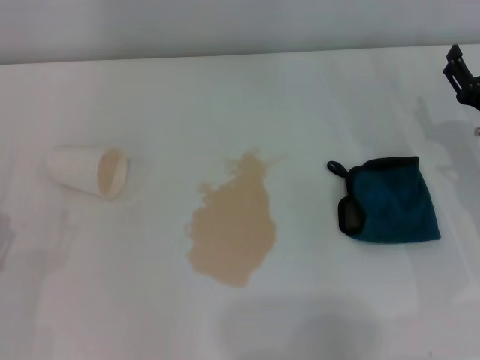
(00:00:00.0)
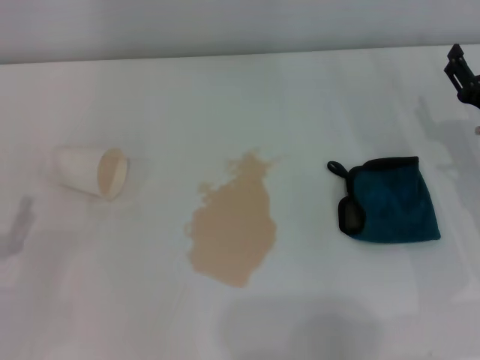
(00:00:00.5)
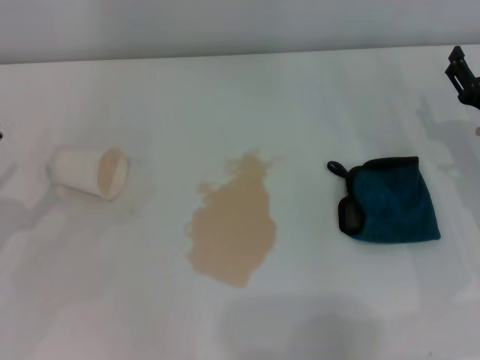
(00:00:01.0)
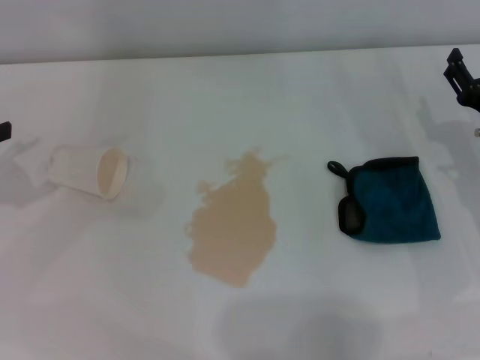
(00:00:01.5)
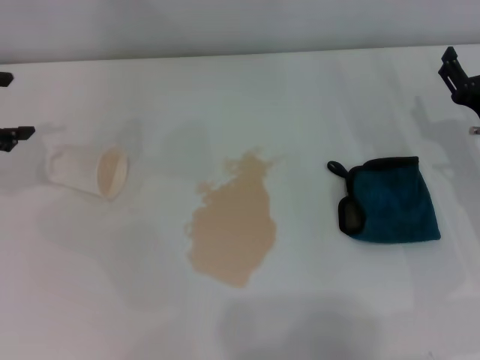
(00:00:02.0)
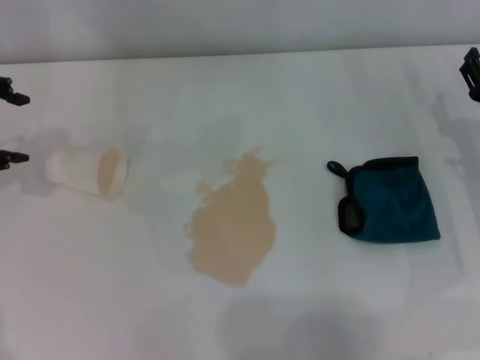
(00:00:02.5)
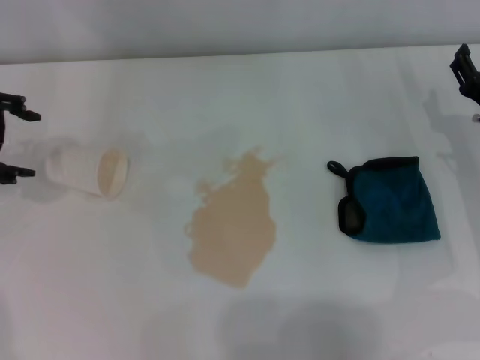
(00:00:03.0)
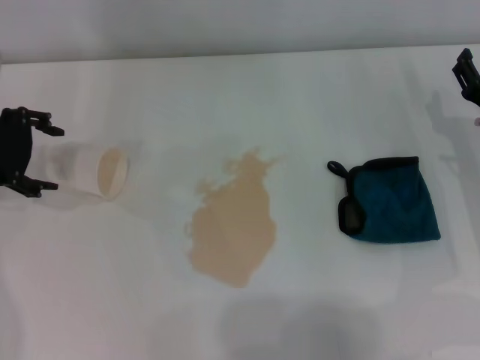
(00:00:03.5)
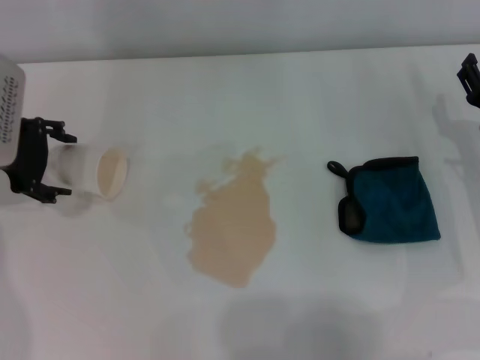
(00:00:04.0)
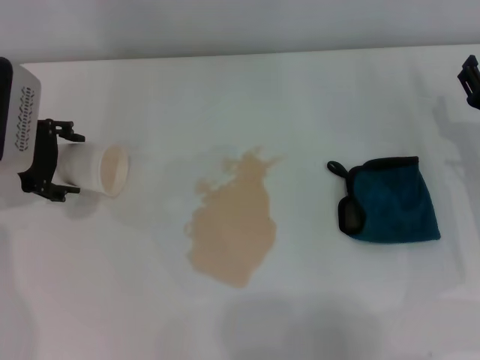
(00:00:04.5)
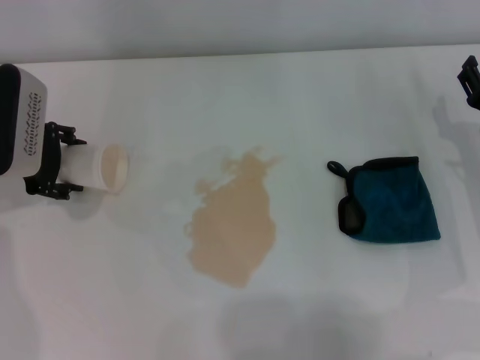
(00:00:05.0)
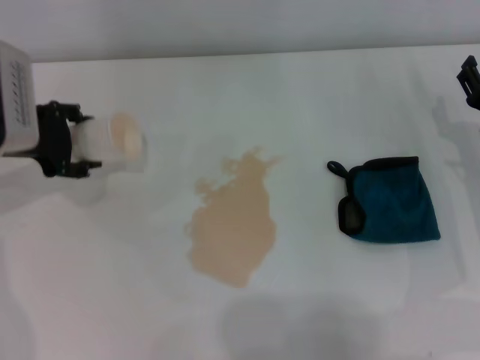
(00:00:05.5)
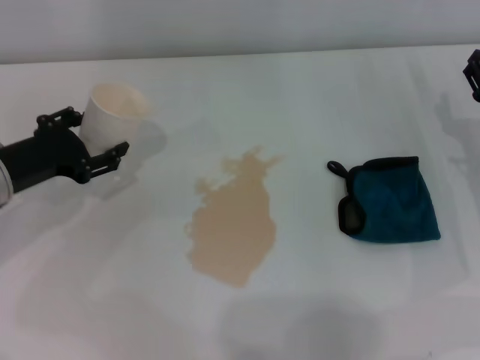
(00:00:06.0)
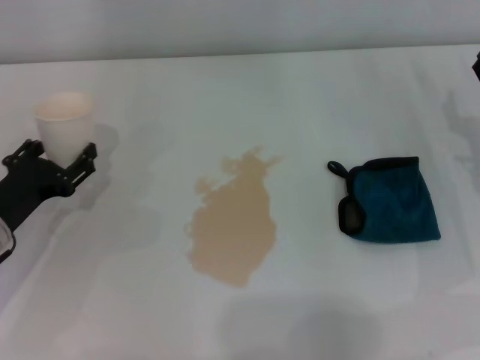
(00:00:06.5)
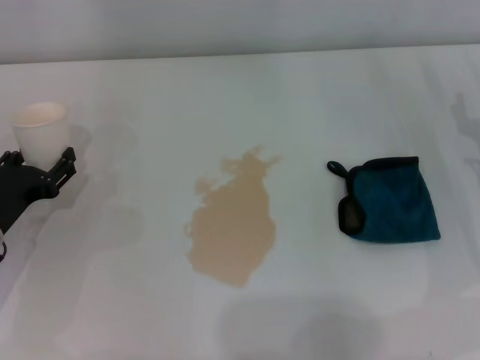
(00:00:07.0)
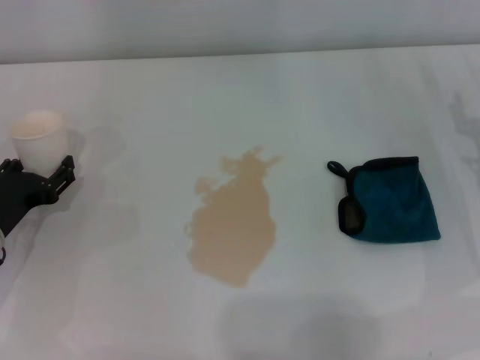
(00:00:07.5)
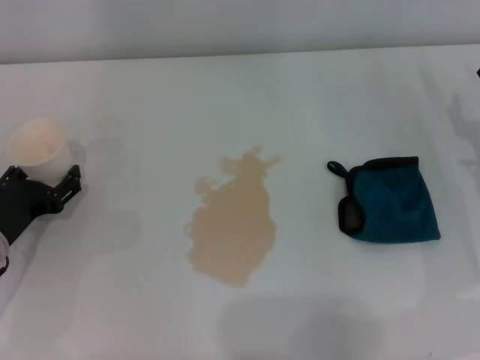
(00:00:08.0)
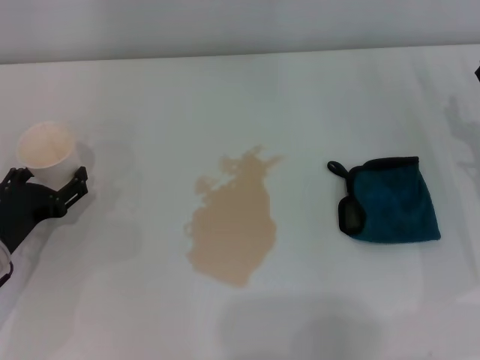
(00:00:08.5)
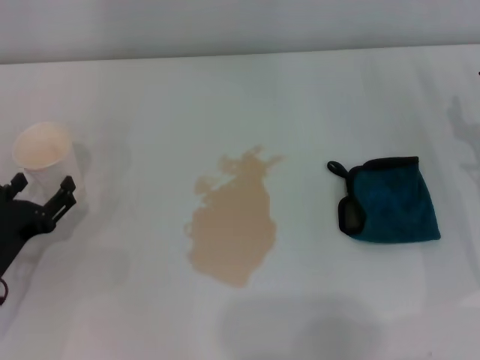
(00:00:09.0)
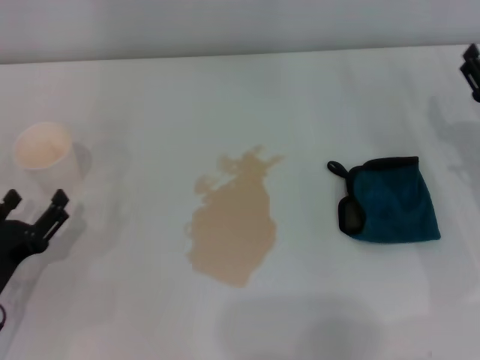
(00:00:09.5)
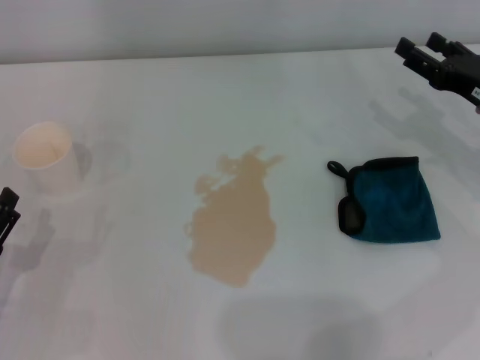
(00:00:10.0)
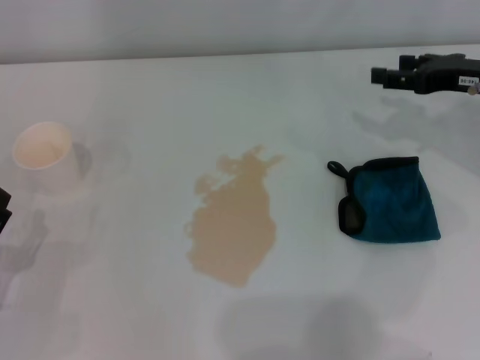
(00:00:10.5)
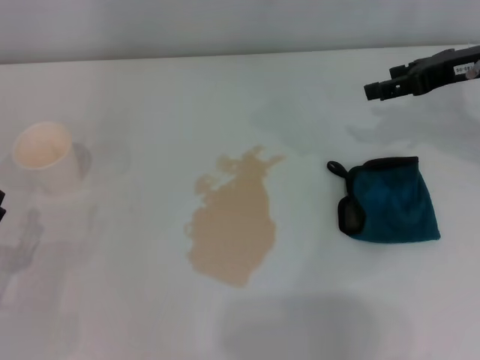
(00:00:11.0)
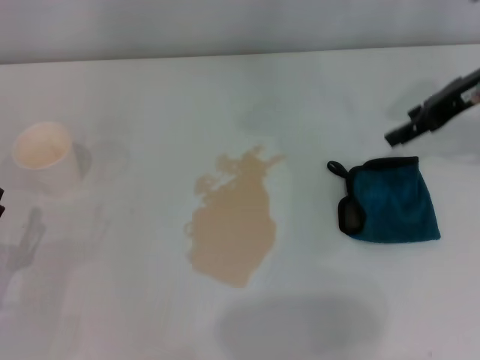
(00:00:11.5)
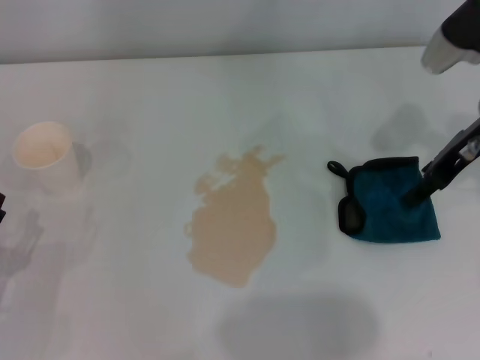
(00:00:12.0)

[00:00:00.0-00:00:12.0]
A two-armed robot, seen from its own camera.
Step, 00:00:00.0 to 00:00:05.0: Grasp the paper cup with the left gripper.
Step, 00:00:05.5 to 00:00:08.5: Stand the paper cup upright with the left gripper.
00:00:00.0 to 00:00:02.0: The left gripper travels forward and upward by some 25 cm.
00:00:02.0 to 00:00:04.0: The left gripper shifts approximately 10 cm to the right and downward.
00:00:04.0 to 00:00:06.0: The left gripper is displaced downward and backward by roughly 10 cm, and closes up.
00:00:06.0 to 00:00:08.0: The left gripper goes approximately 10 cm downward and backward.
00:00:08.0 to 00:00:10.0: The left gripper shifts about 10 cm backward, and opens. Meanwhile the right gripper changes place by approximately 5 cm.
00:00:10.0 to 00:00:12.0: The right gripper goes some 5 cm upward.

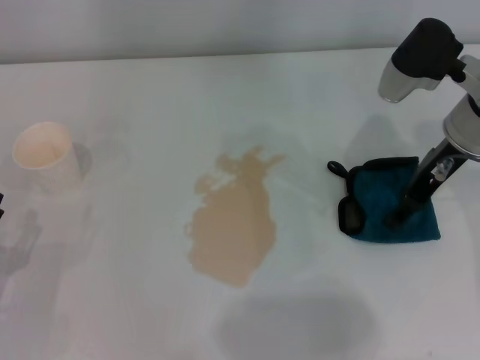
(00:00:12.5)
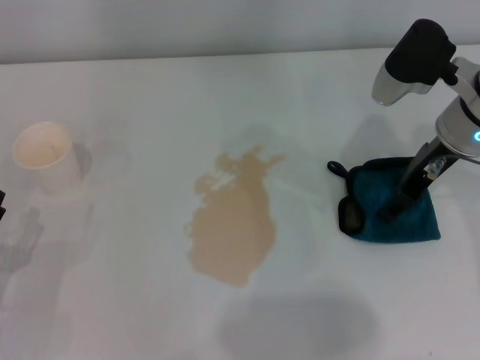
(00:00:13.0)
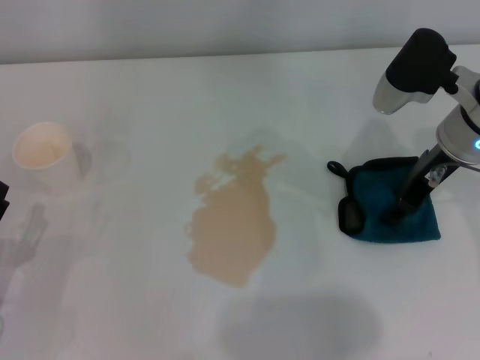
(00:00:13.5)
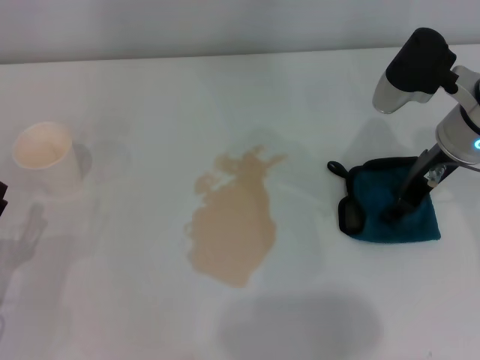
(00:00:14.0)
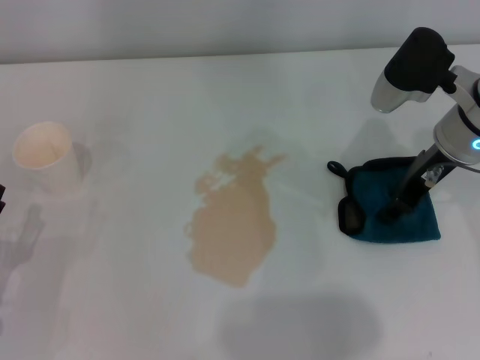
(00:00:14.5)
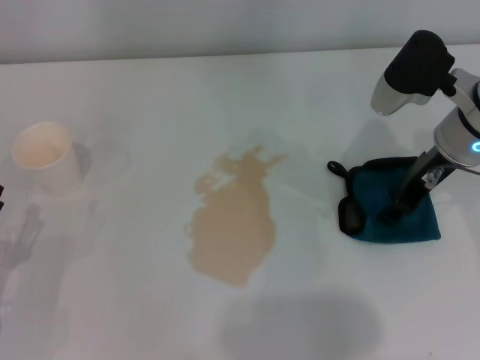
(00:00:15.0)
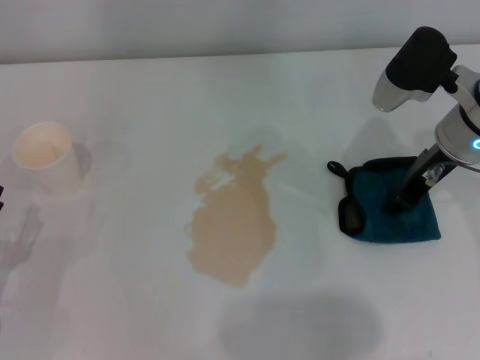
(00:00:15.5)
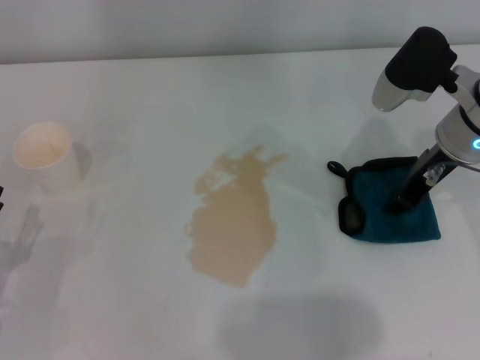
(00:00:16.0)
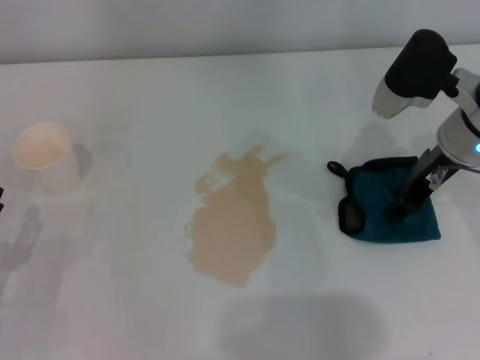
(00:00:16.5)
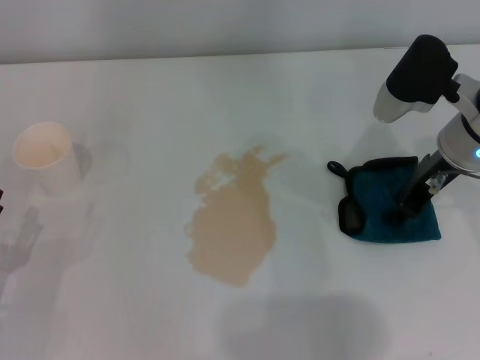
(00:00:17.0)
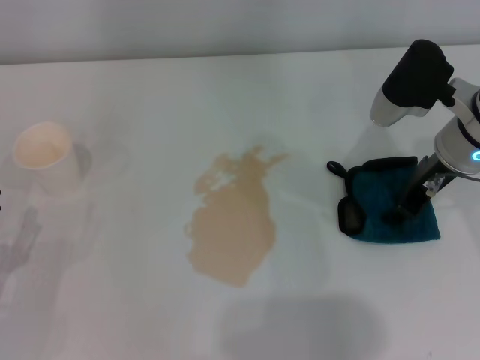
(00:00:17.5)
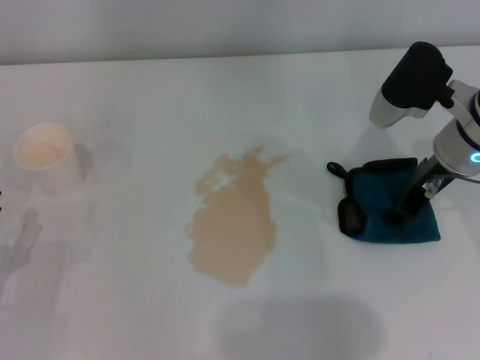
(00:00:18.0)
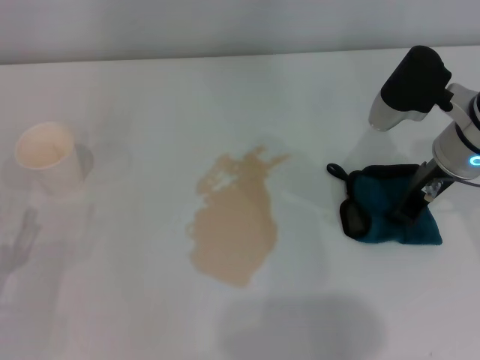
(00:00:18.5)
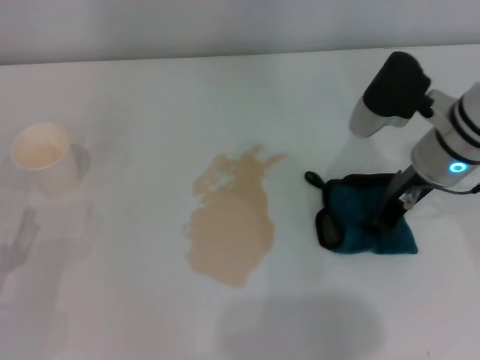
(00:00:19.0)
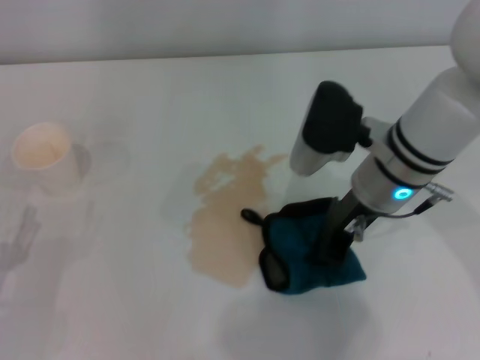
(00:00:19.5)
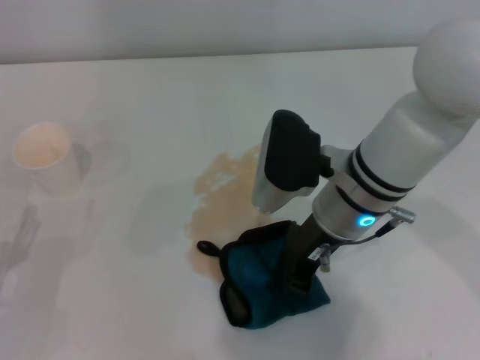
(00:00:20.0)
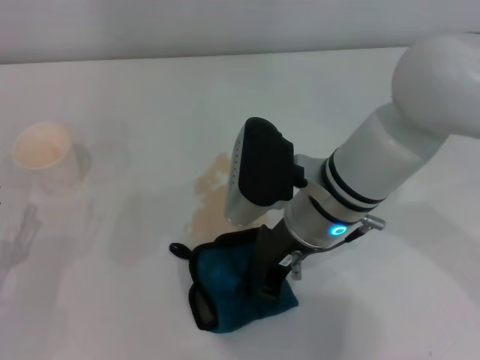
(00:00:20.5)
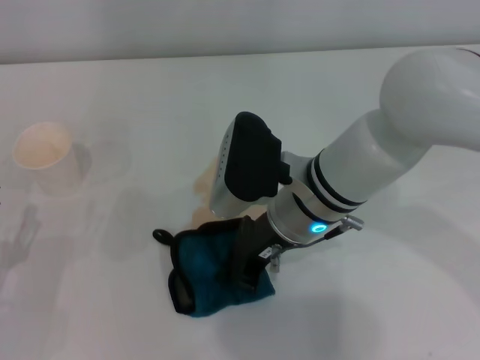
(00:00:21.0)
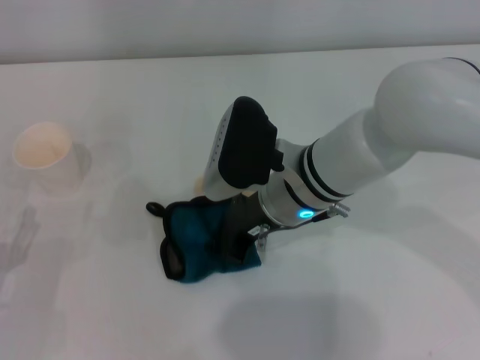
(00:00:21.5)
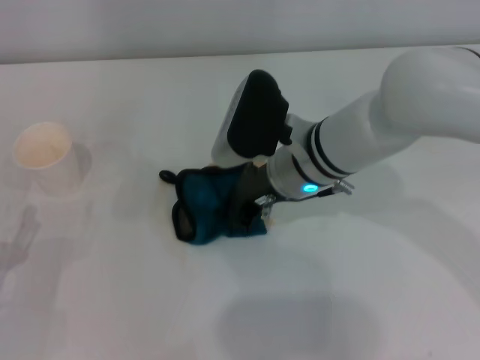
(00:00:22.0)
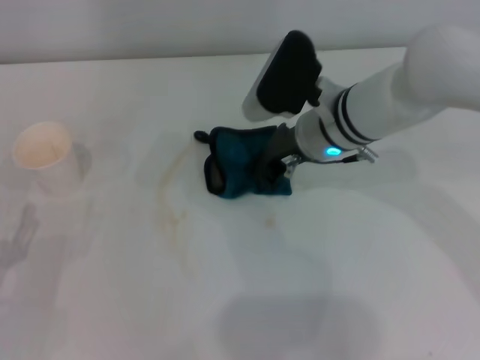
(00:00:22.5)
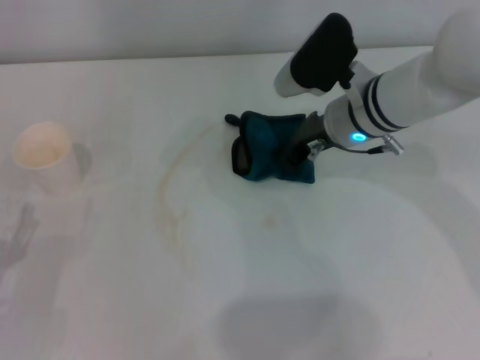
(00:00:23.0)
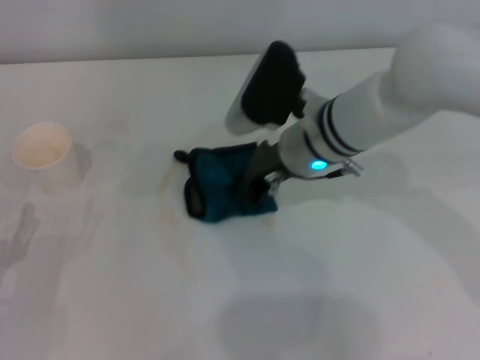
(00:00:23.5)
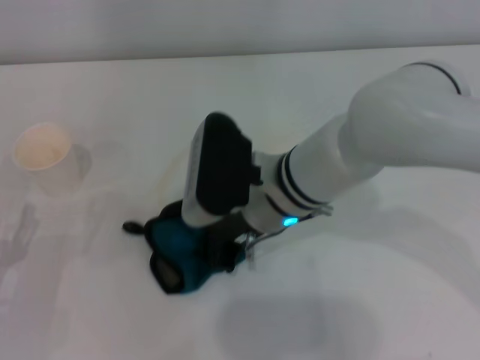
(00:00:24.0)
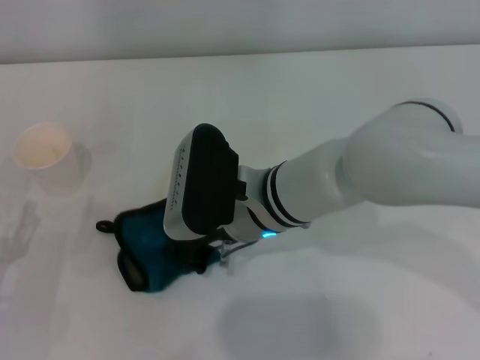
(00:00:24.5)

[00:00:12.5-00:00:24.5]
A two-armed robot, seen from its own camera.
Step, 00:00:12.5 to 00:00:18.0: Grasp the rag with the right gripper.
00:00:12.5 to 00:00:14.5: The right gripper closes its fingers.
00:00:14.5 to 00:00:16.5: Neither gripper changes place.
00:00:16.5 to 00:00:18.5: The grippers move only a little.
00:00:18.5 to 00:00:20.5: The right gripper is displaced to the left by approximately 15 cm.
00:00:20.5 to 00:00:22.5: The right gripper shifts roughly 10 cm forward.
00:00:22.5 to 00:00:24.5: The right gripper heads to the left and backward, covering some 10 cm.

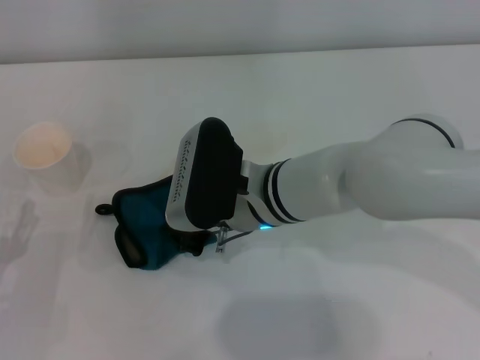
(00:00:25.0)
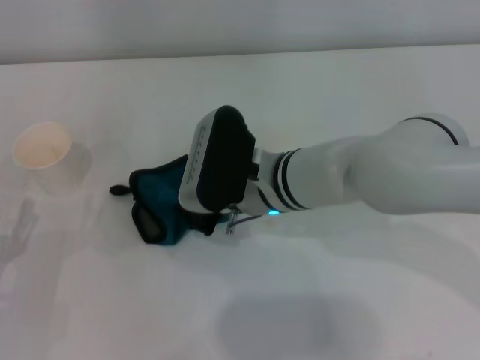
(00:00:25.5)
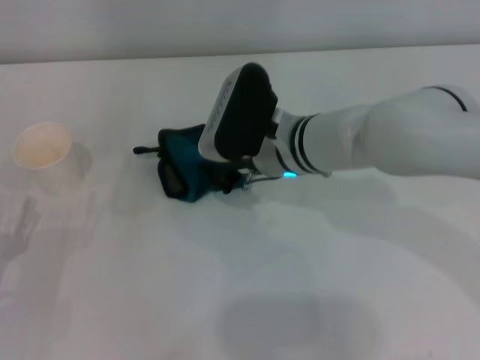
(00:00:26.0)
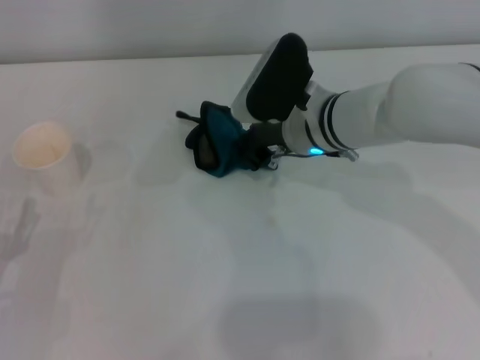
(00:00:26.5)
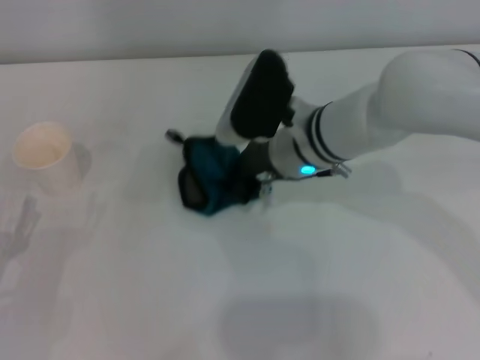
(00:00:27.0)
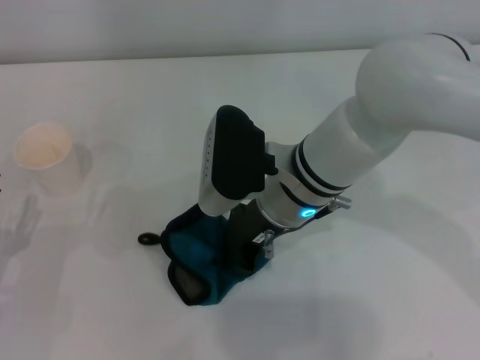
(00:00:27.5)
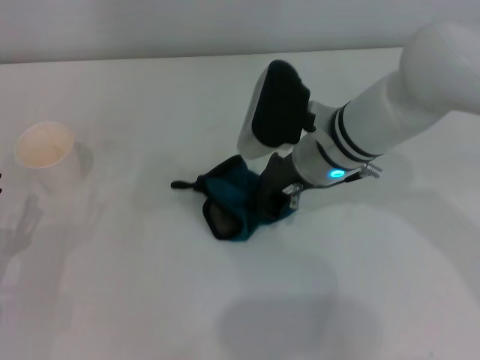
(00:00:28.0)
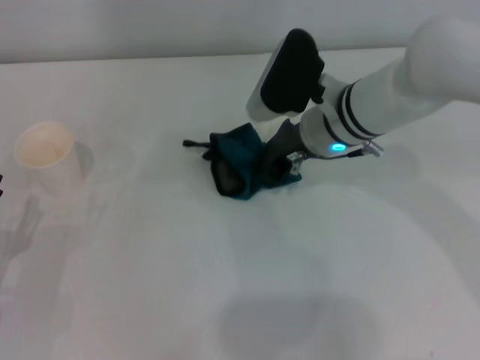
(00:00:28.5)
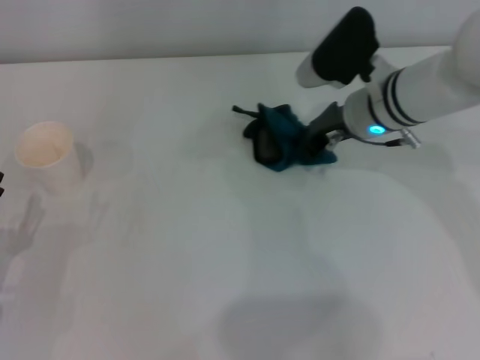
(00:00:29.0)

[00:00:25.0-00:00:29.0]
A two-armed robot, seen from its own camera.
00:00:25.0 to 00:00:27.0: The right gripper shifts approximately 5 cm forward and to the right.
00:00:27.0 to 00:00:29.0: The right gripper is displaced to the right by some 10 cm.
